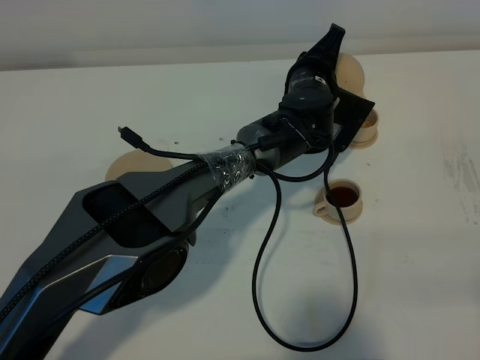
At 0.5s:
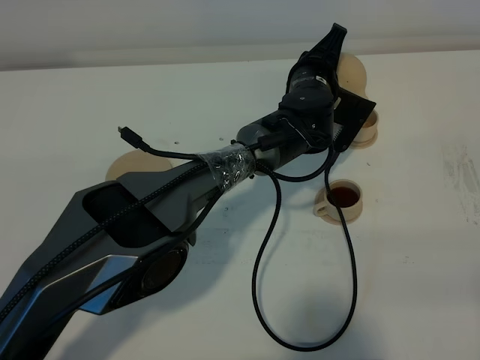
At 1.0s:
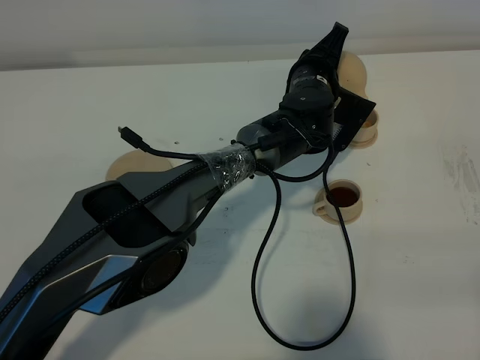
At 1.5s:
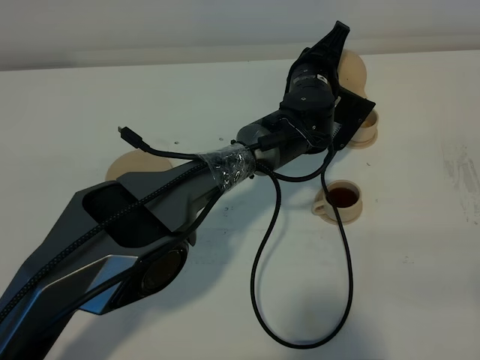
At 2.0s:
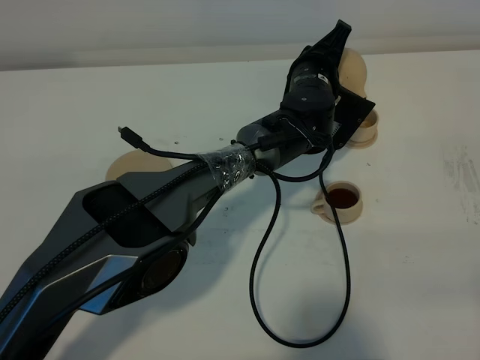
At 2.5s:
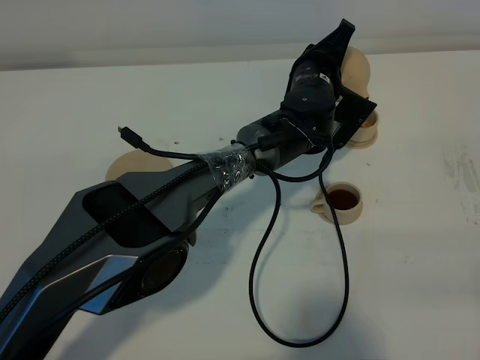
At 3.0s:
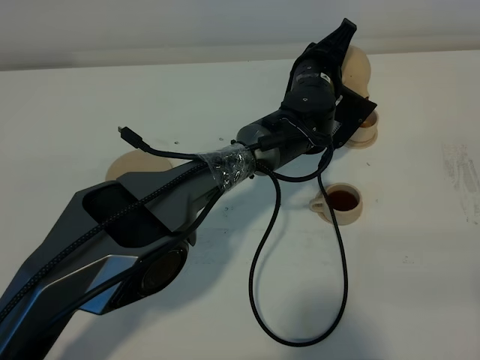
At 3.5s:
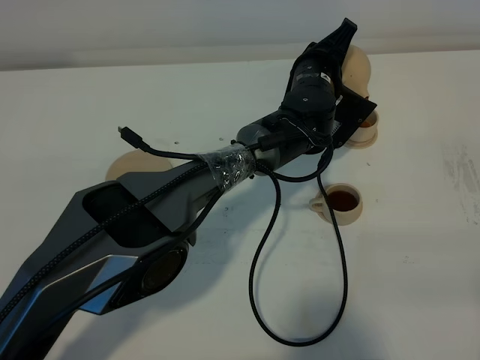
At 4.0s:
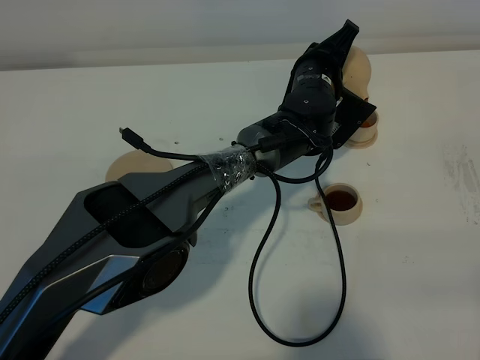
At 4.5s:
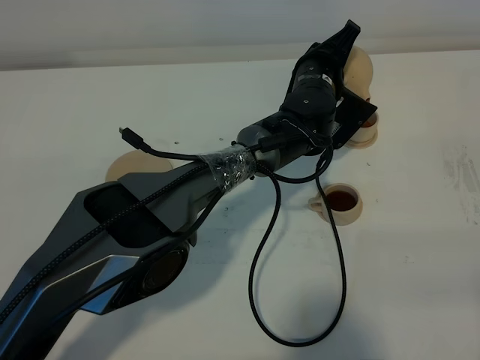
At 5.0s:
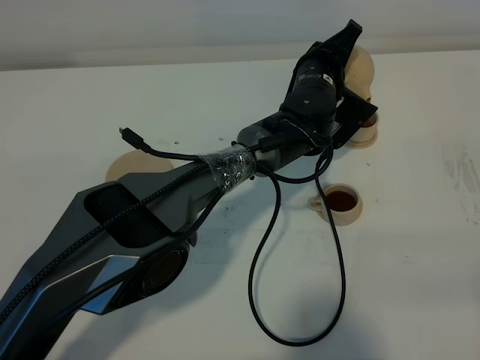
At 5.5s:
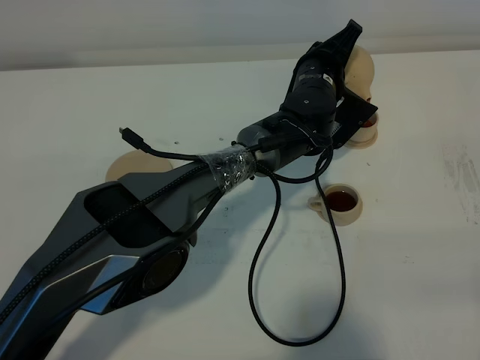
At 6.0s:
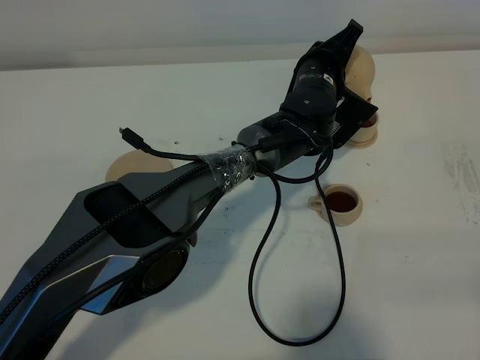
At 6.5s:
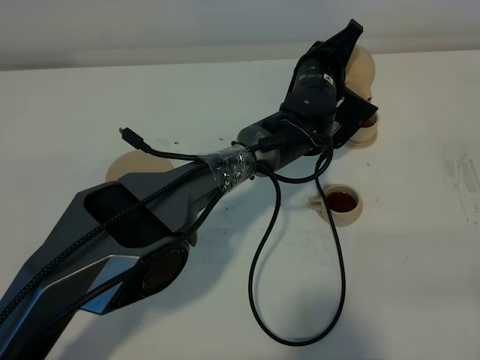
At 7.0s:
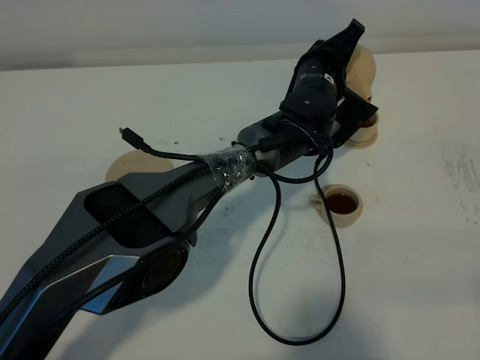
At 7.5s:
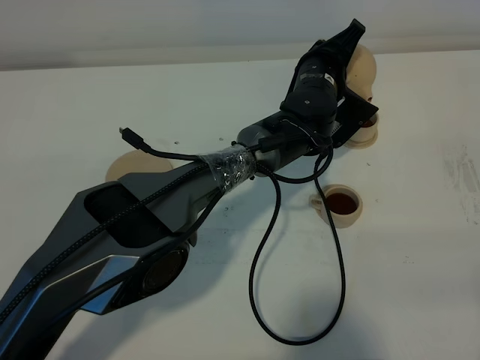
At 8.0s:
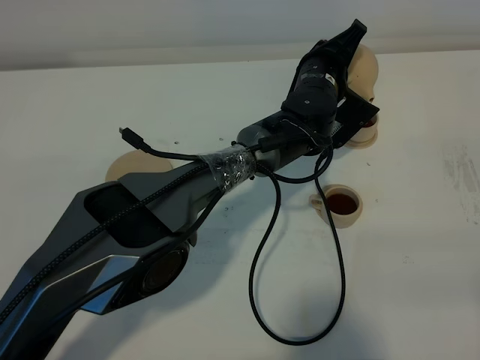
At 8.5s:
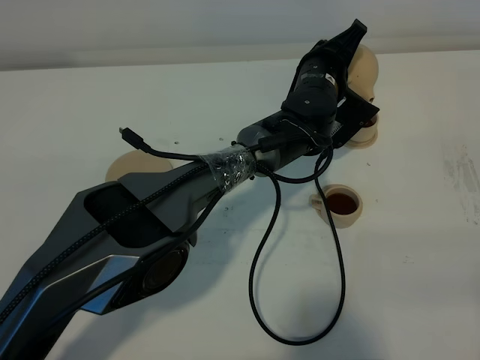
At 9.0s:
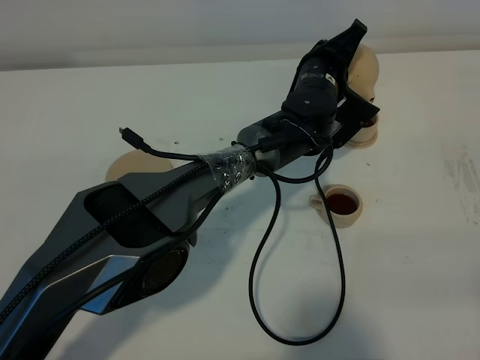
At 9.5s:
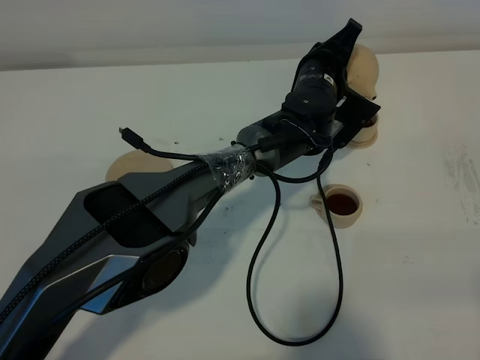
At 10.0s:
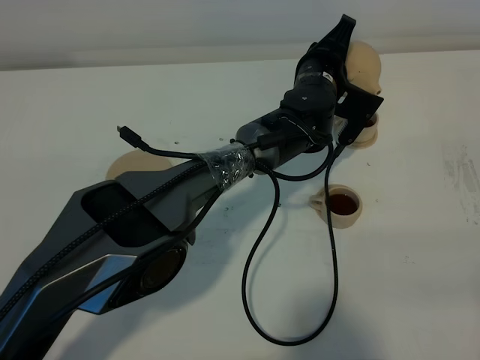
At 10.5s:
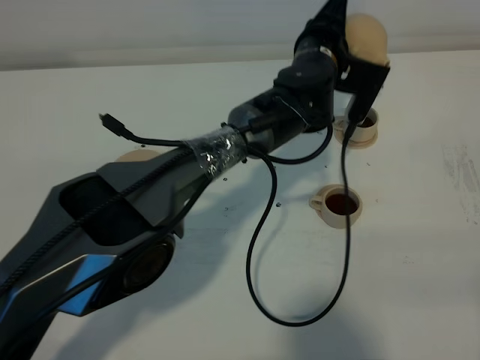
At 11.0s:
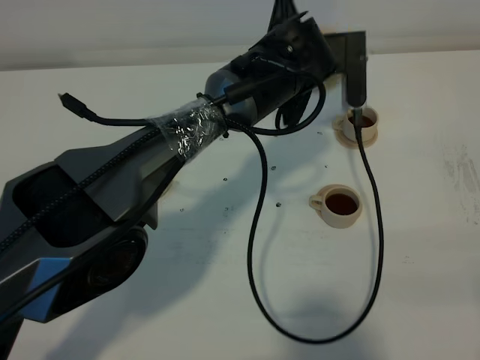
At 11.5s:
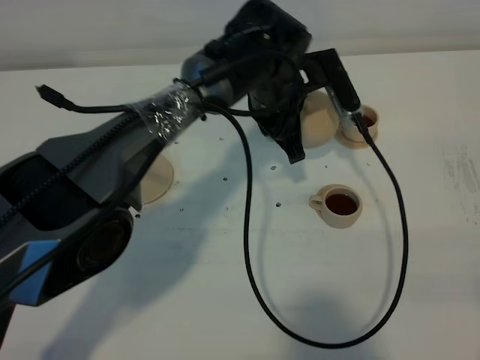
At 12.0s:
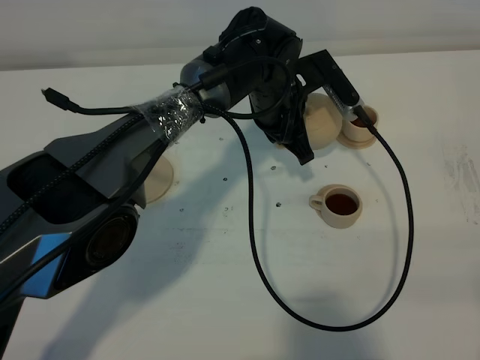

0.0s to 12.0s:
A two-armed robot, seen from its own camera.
Task of the whole recording: grasp the brown teapot and pour the tea into the two brown teacups one by one, put the brown teapot back in its original place.
Step, 0.0s to 10.0s: Pour tea into the teacup with the left gripper.
0.0s to 2.0s: The grippers make only small movements.
2.0s to 4.0s: Both grippers stay about where they are.
4.0s to 8.0s: Both grippers stay about where they are.
8.0s to 10.0s: The grippers make only small movements.
10.0s to 12.0s: The left gripper shifts approximately 5 cm to the left.

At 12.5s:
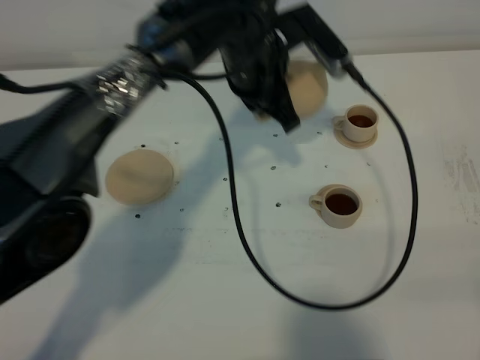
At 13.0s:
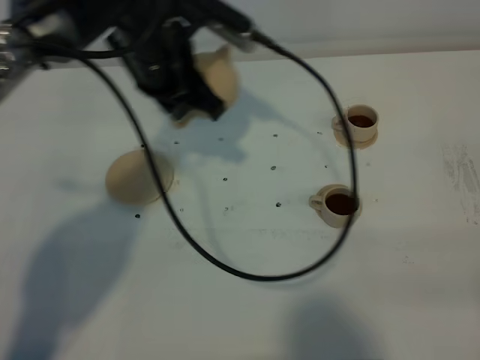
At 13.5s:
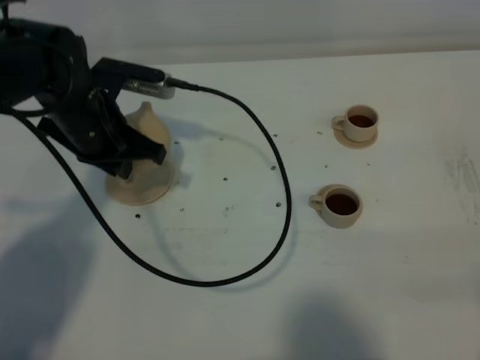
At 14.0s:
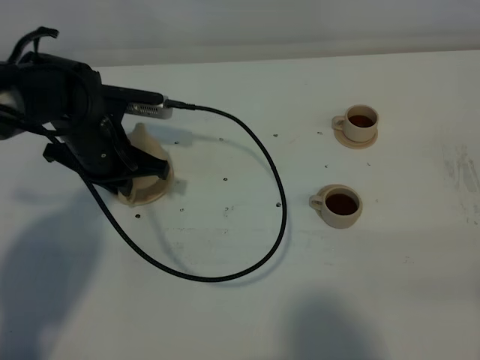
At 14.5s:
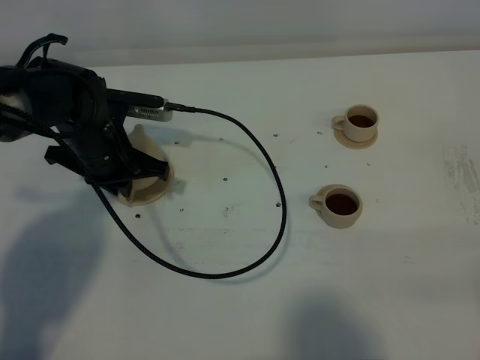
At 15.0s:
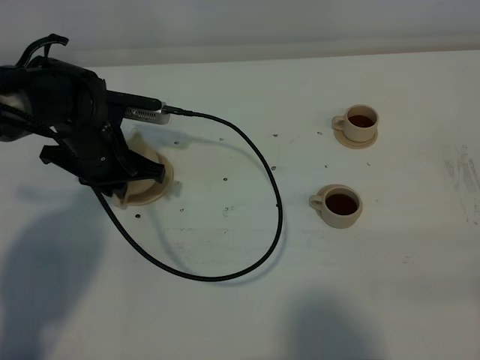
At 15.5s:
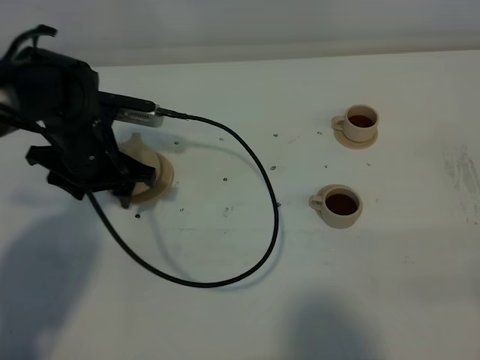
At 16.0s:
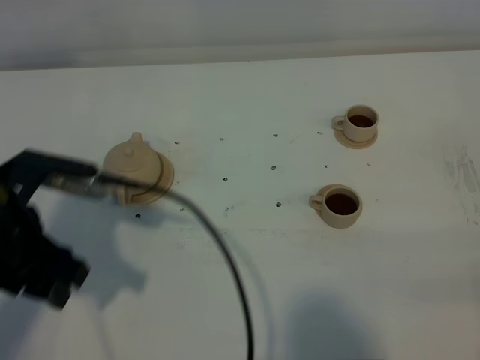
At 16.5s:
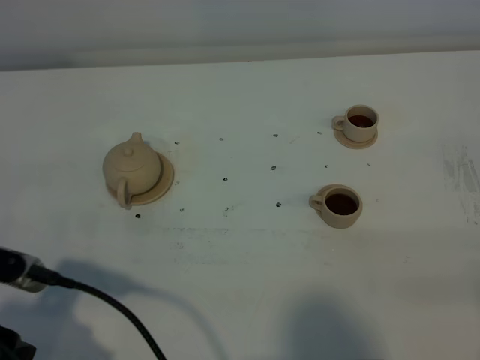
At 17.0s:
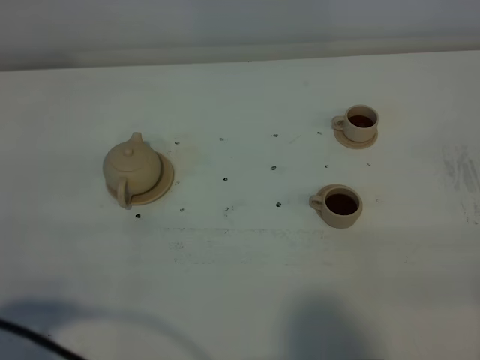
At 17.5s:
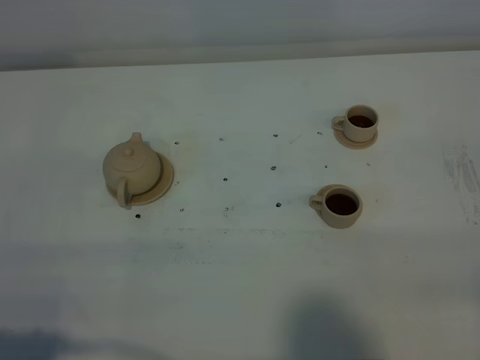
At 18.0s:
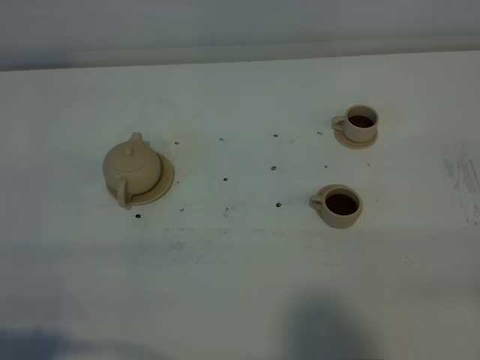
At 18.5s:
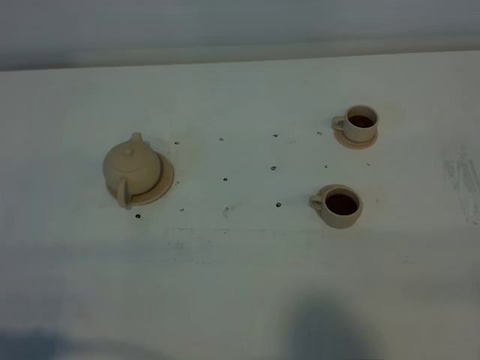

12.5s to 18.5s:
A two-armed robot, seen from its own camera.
Task of the whole recording: grasp the brown teapot and pour the tea into the two brown teacups one by one, put the brown teapot back in its original place.
12.5s to 14.5s: The left gripper travels to the left and downward by some 20 cm.
14.5s to 16.5s: The left gripper moves backward, approximately 25 cm, and opens up.
16.5s to 18.5s: The left gripper heads backward, covering some 10 cm.

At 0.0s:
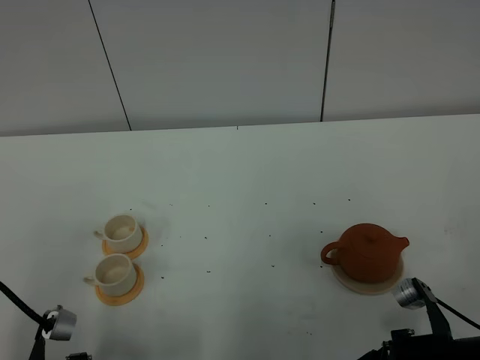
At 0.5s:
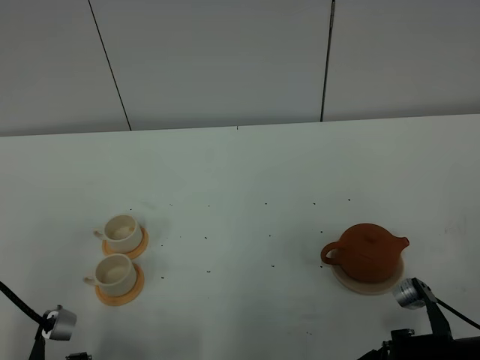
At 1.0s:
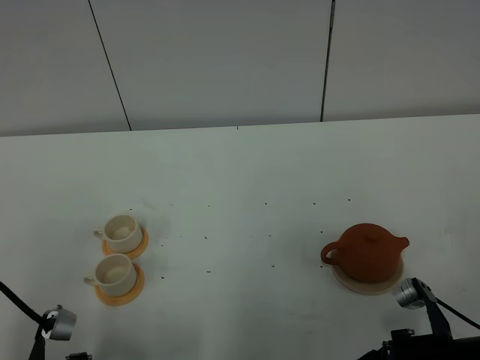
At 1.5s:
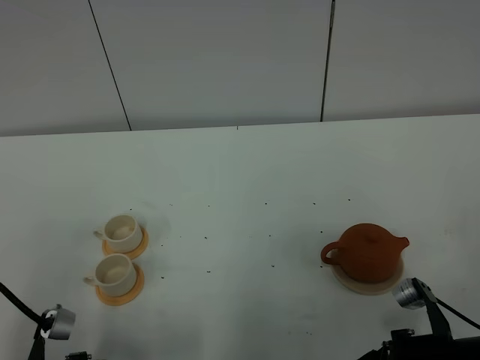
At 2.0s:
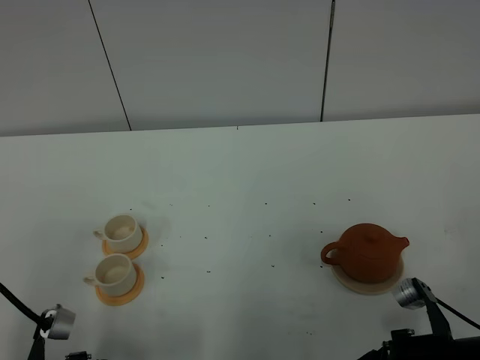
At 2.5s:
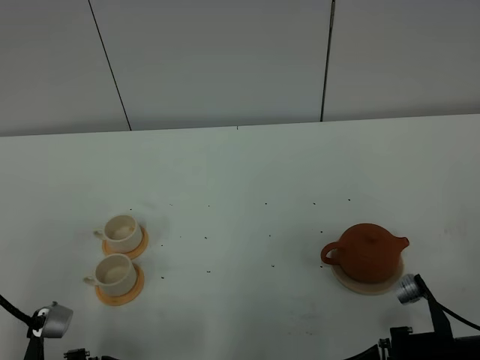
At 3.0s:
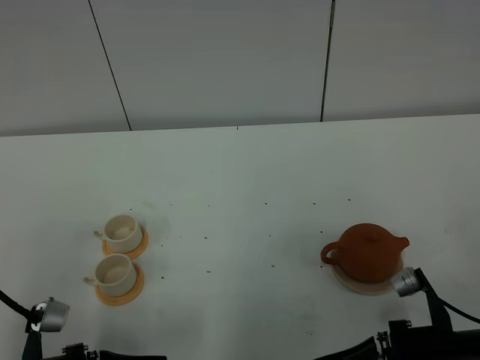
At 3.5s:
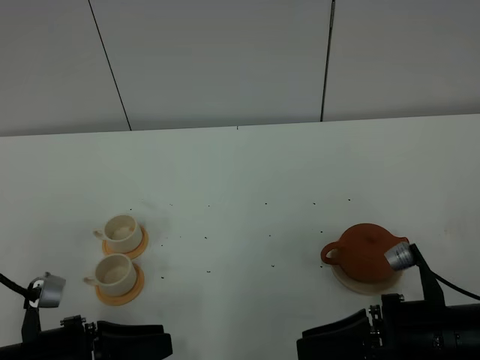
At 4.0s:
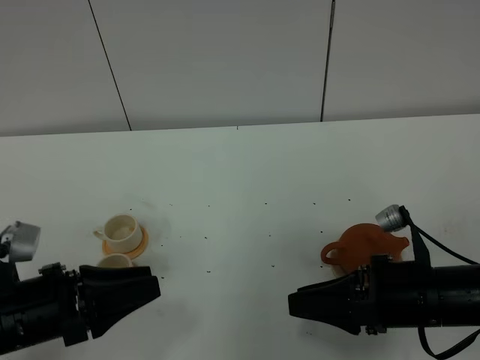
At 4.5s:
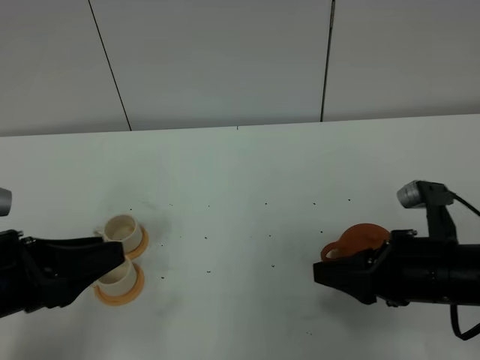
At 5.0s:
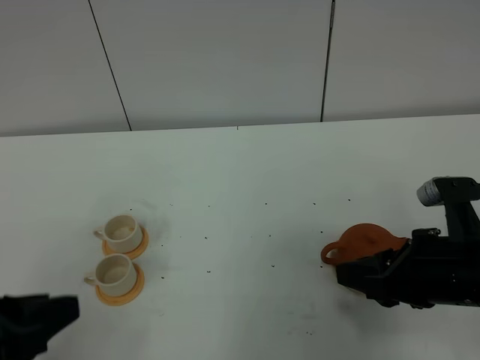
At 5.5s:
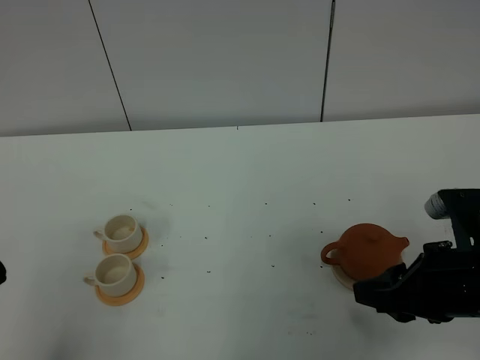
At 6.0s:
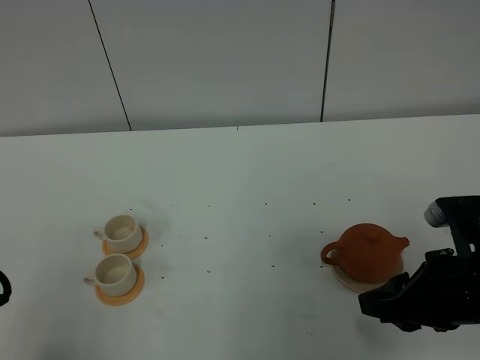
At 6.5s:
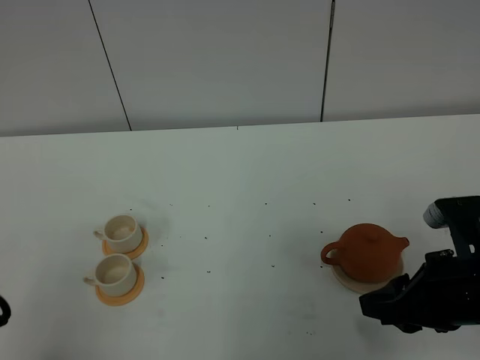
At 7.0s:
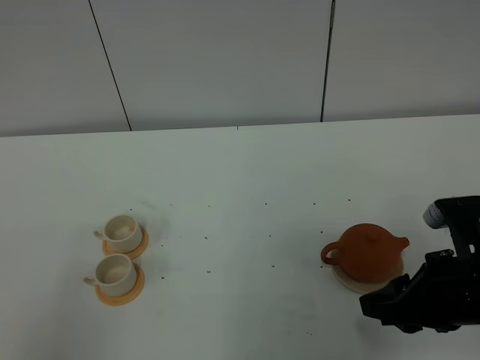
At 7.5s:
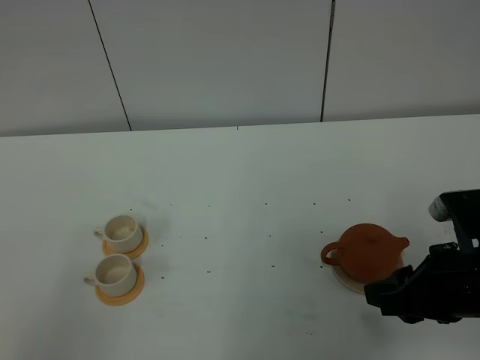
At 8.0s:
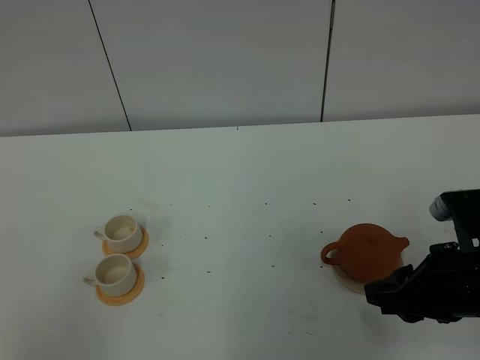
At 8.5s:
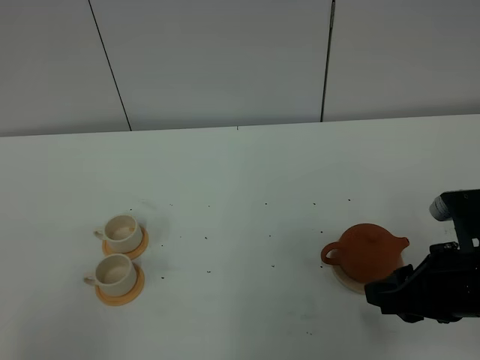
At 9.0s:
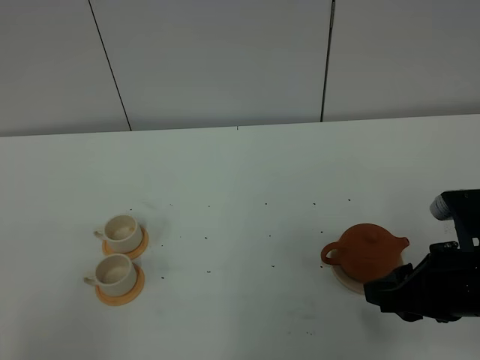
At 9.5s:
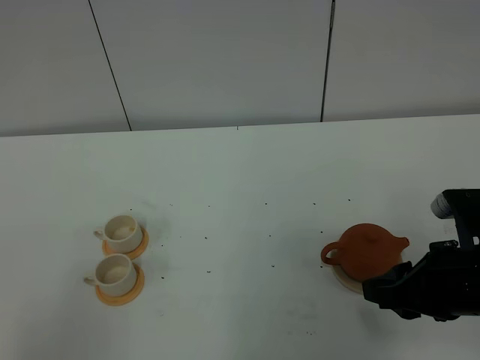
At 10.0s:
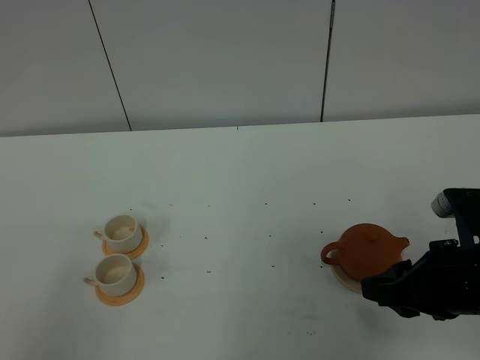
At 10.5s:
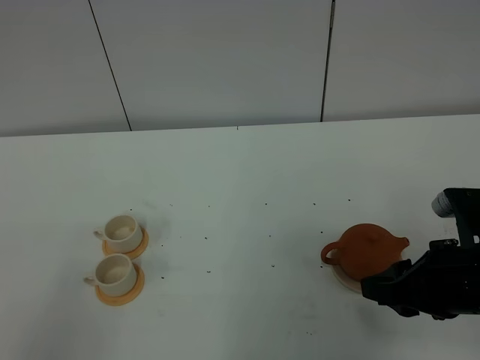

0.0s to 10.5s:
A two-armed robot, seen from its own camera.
Task of the whole recording: grasp the brown teapot and pour the tea into the two white teacups one by one, put the brown teapot back in its original place.
0.0s to 2.0s: Neither gripper changes place.
2.0s to 4.0s: The right gripper goes approximately 5 cm forward; the left gripper travels upward and forward by approximately 10 cm.
4.0s to 6.5s: The right gripper moves approximately 5 cm; the left gripper travels backward and upward by some 15 cm.
8.5s to 10.5s: The grippers make only small movements.
